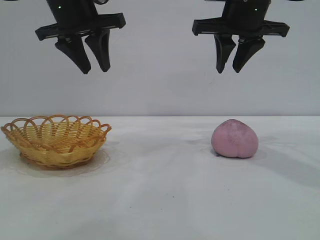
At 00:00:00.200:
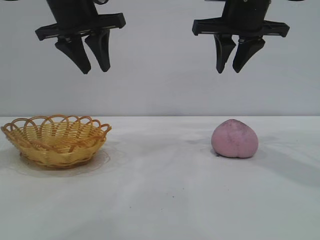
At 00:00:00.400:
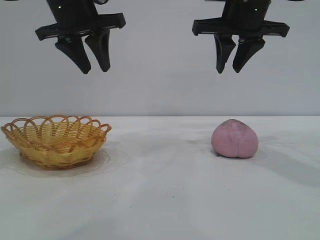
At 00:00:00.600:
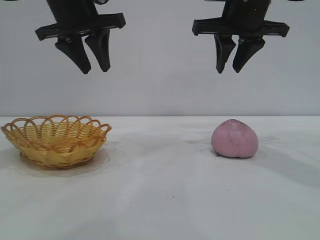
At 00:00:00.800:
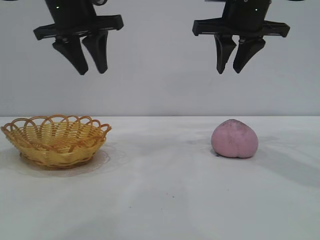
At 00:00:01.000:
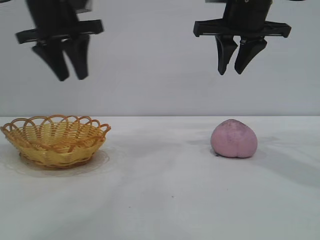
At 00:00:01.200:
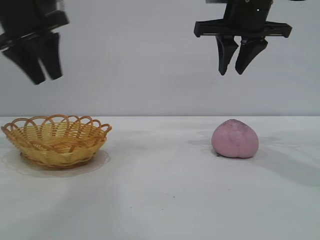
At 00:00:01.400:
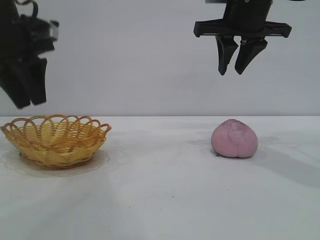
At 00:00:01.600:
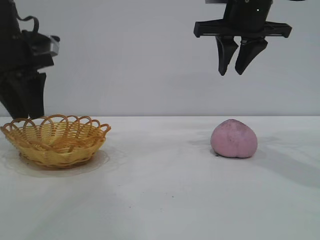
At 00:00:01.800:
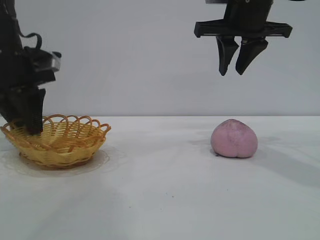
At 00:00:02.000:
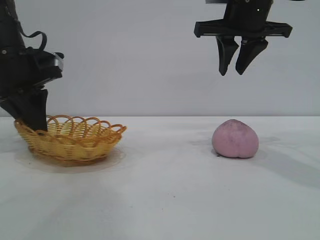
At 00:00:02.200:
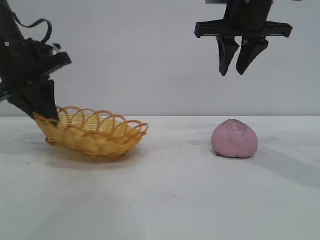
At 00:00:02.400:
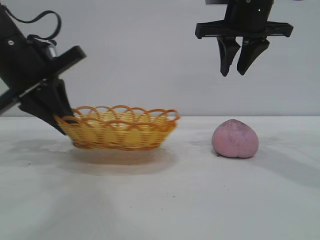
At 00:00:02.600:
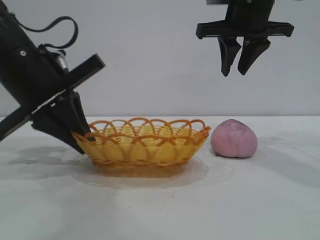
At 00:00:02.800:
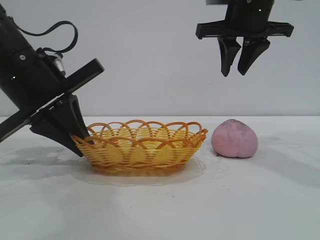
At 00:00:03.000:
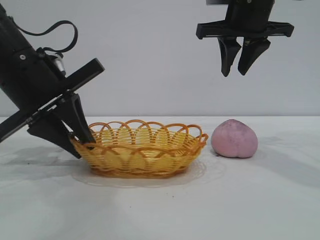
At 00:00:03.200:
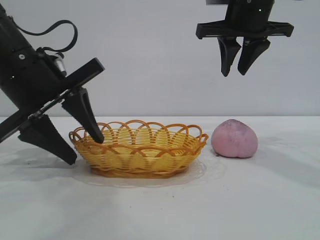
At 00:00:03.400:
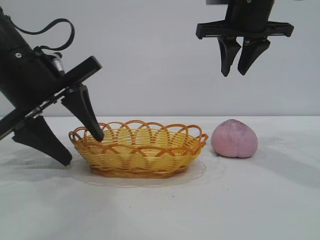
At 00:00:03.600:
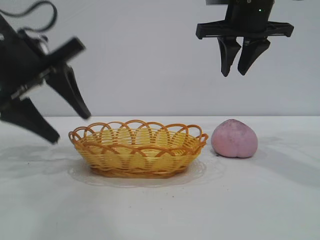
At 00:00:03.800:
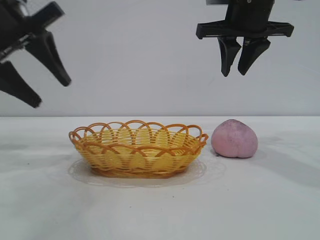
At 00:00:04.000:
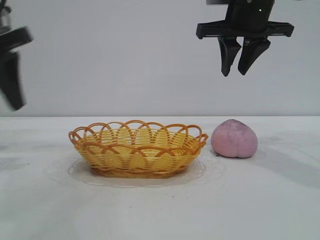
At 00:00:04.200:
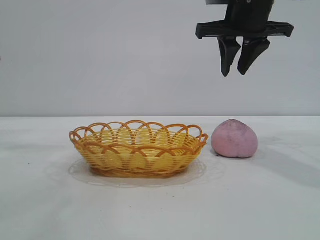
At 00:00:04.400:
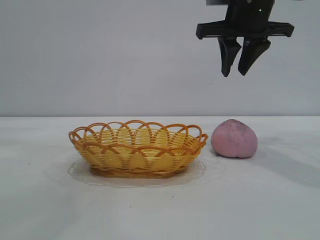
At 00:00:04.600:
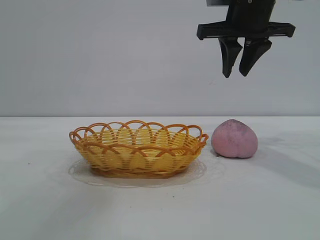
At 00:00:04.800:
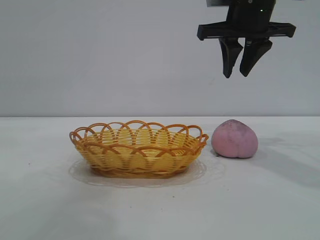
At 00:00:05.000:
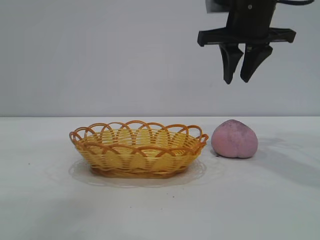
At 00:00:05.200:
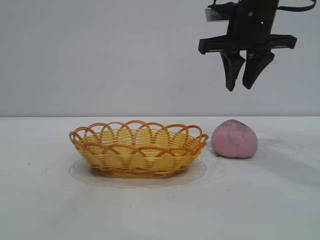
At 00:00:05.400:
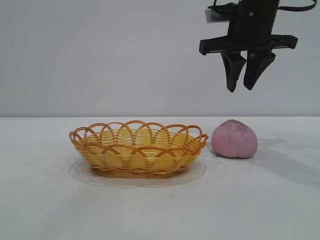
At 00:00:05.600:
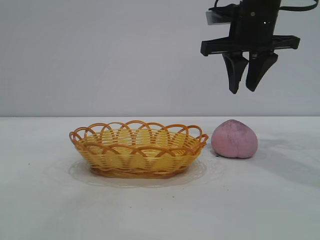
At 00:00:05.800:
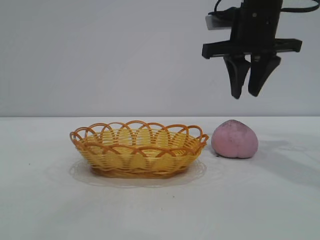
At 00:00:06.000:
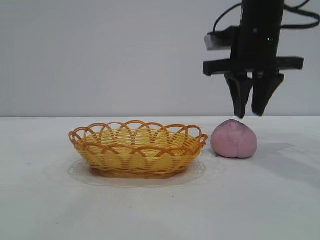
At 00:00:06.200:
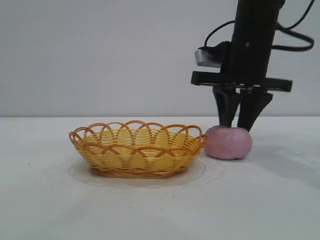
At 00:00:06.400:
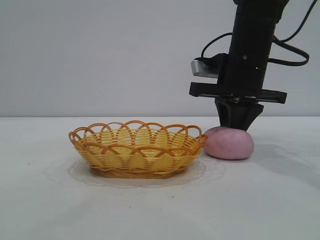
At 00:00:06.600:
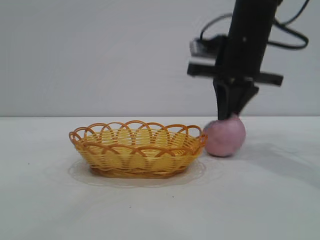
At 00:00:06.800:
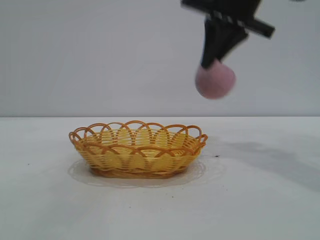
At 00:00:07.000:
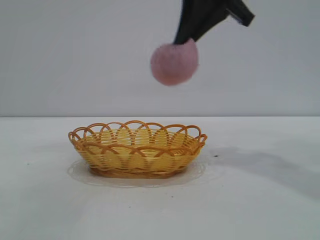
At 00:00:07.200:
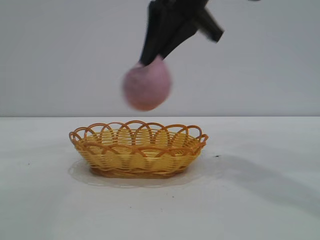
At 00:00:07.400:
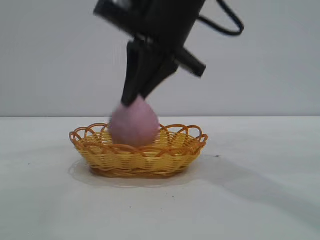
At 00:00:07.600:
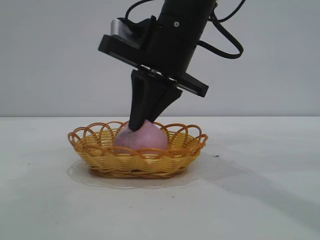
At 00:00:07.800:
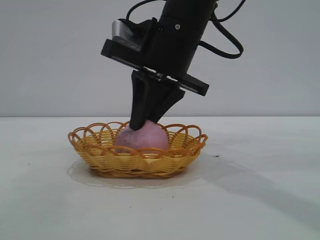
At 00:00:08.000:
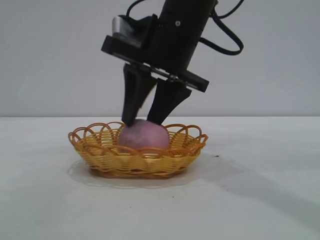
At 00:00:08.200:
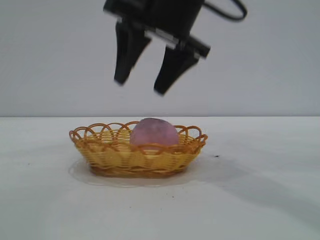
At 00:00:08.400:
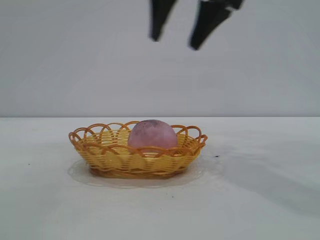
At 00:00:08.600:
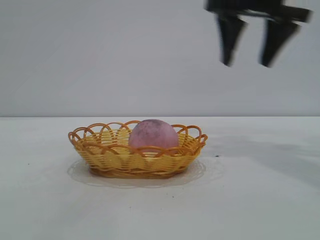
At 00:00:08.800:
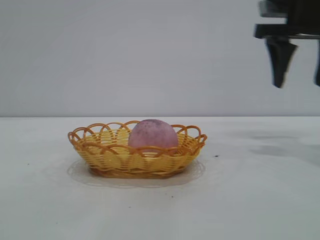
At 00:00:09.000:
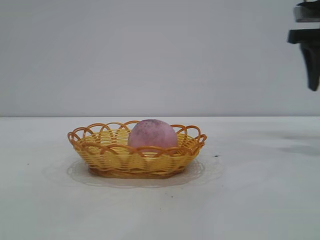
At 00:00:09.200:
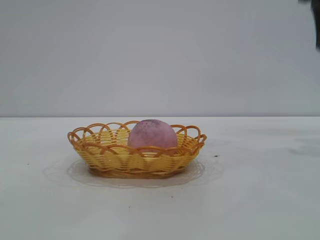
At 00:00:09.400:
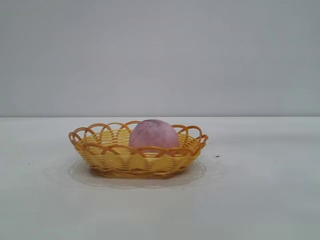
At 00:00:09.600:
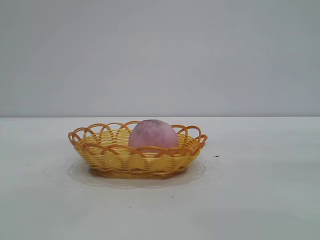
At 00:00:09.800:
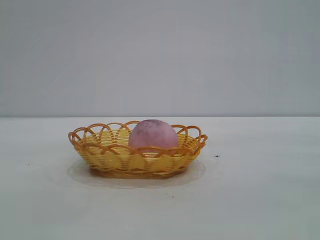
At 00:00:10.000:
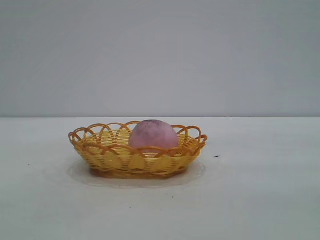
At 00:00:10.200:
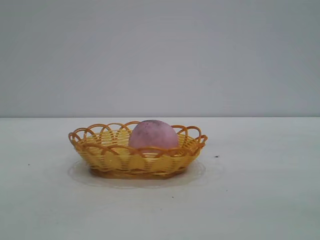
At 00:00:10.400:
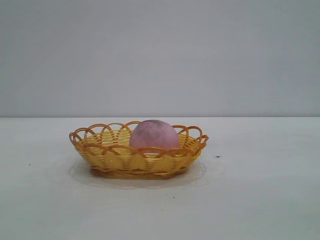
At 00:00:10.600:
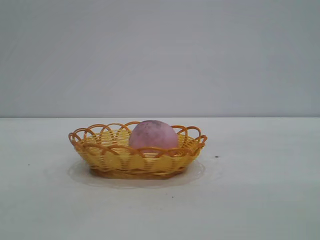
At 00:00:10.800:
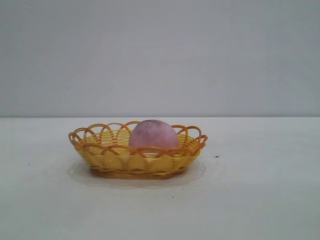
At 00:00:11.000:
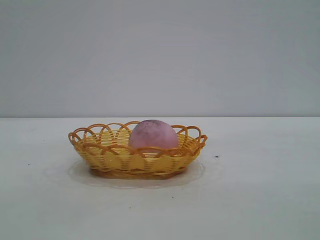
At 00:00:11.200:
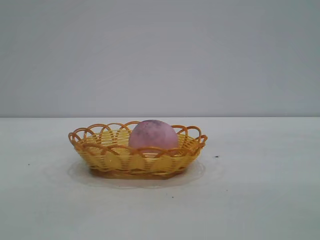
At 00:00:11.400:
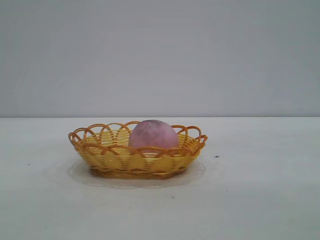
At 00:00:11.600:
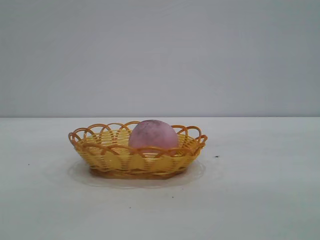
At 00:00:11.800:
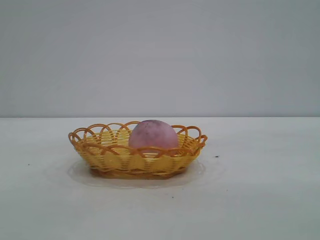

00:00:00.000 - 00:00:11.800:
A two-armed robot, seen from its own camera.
Task of the whole recording: pick up the peach and put it into the basket.
Step, 00:00:00.000 - 00:00:03.600: Move the basket to the center of view.
Step, 00:00:03.800 - 00:00:06.600: Pick up the peach.
Step, 00:00:06.800 - 00:00:08.200: place the peach into the basket.
